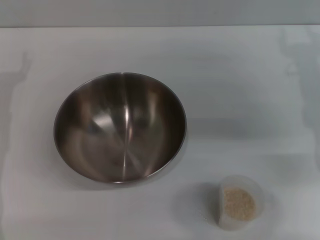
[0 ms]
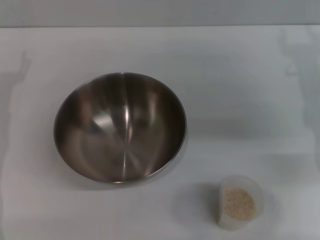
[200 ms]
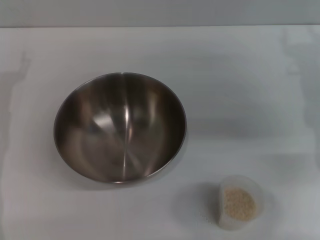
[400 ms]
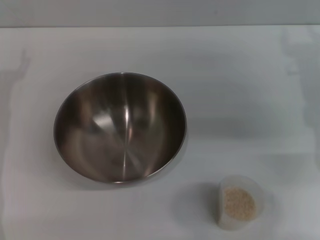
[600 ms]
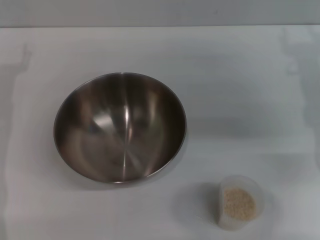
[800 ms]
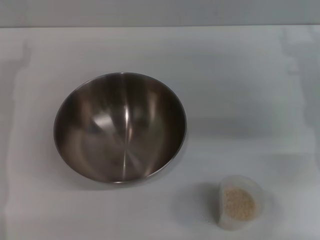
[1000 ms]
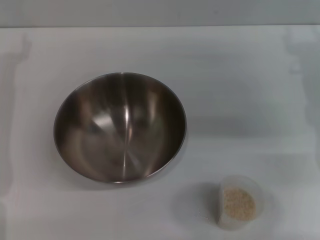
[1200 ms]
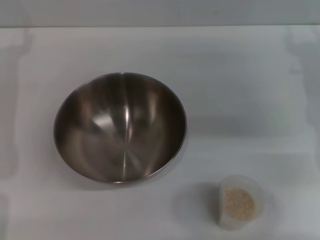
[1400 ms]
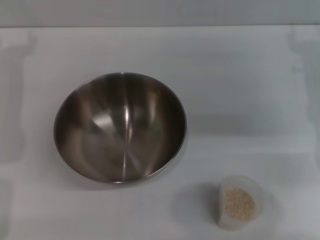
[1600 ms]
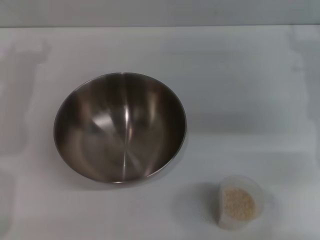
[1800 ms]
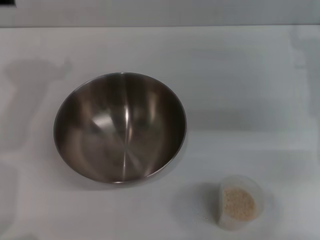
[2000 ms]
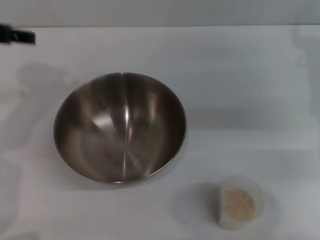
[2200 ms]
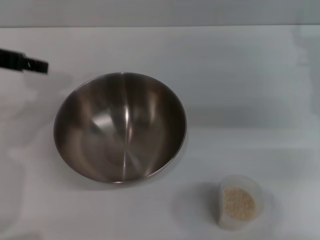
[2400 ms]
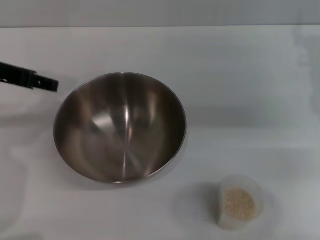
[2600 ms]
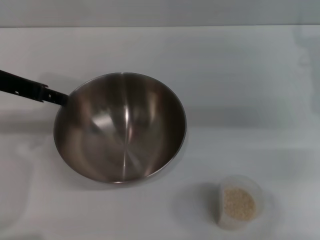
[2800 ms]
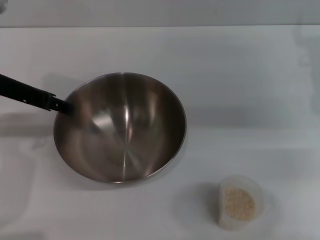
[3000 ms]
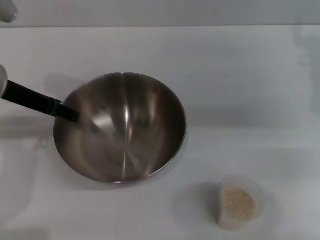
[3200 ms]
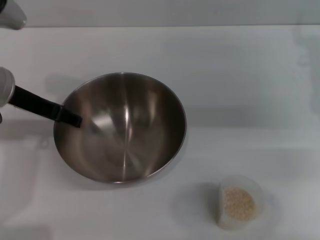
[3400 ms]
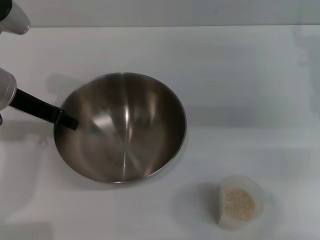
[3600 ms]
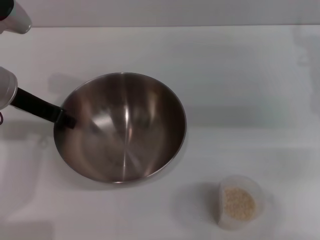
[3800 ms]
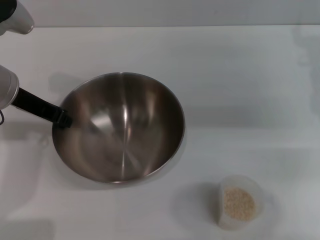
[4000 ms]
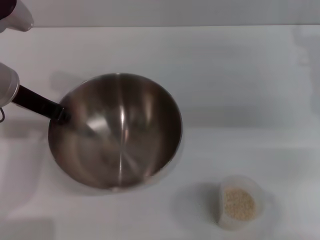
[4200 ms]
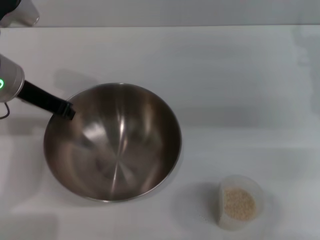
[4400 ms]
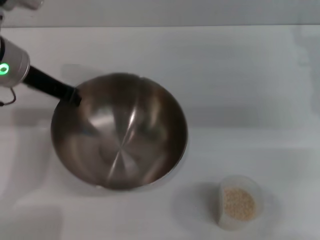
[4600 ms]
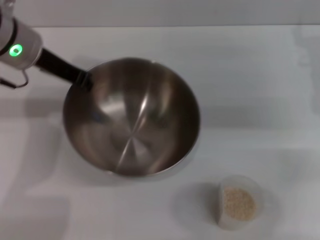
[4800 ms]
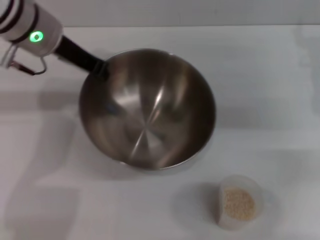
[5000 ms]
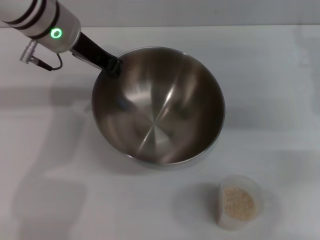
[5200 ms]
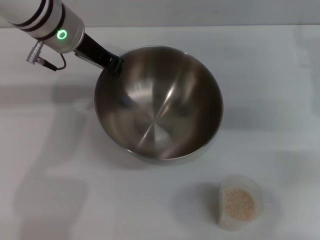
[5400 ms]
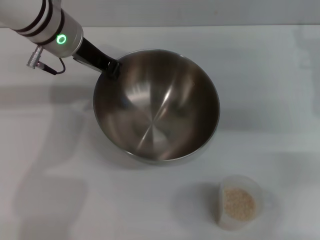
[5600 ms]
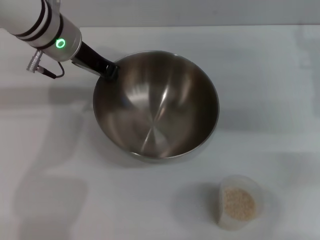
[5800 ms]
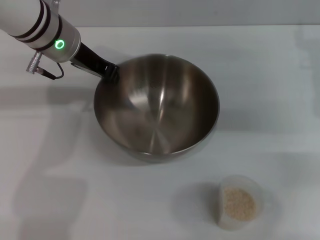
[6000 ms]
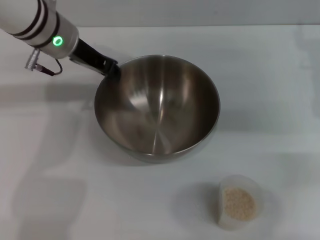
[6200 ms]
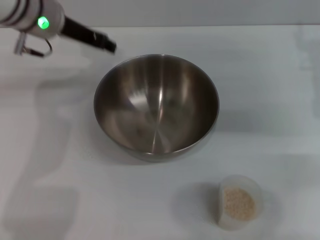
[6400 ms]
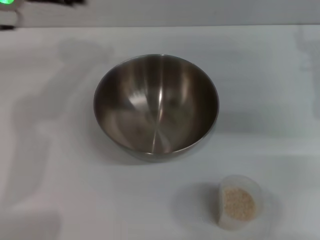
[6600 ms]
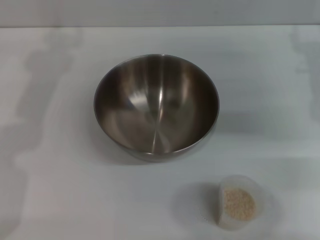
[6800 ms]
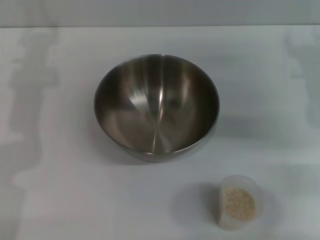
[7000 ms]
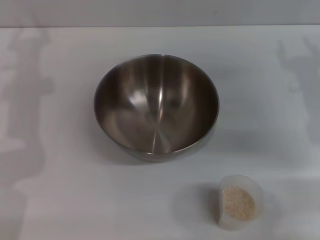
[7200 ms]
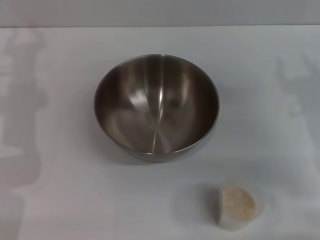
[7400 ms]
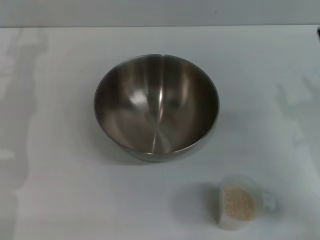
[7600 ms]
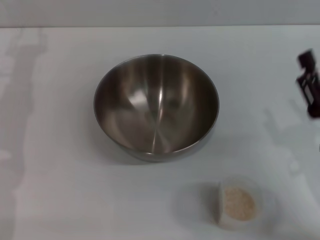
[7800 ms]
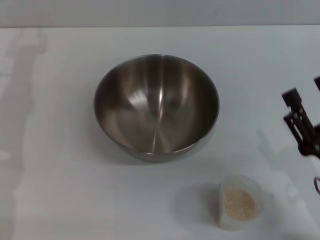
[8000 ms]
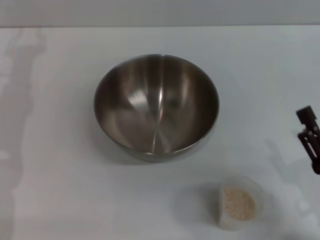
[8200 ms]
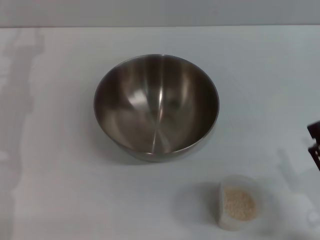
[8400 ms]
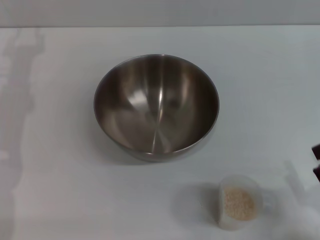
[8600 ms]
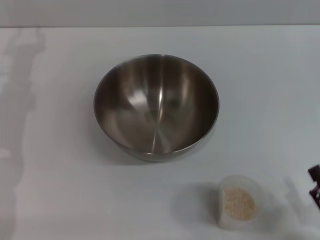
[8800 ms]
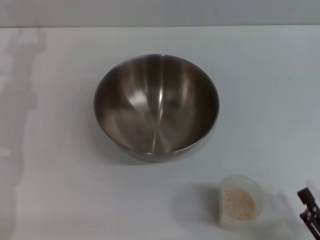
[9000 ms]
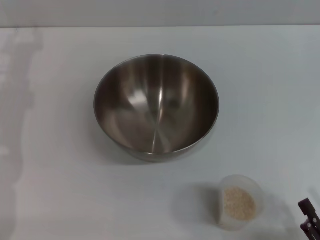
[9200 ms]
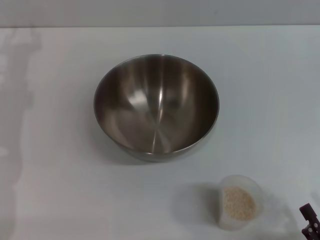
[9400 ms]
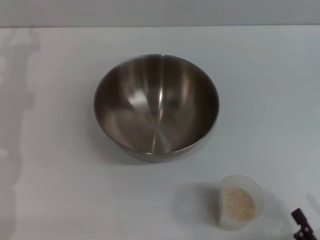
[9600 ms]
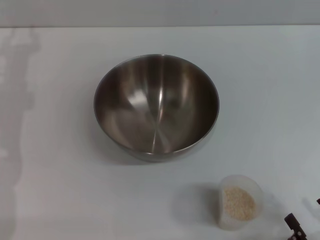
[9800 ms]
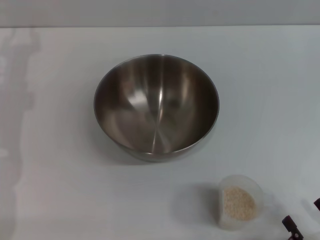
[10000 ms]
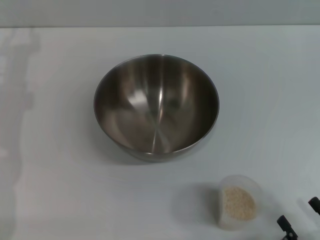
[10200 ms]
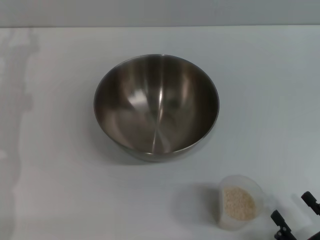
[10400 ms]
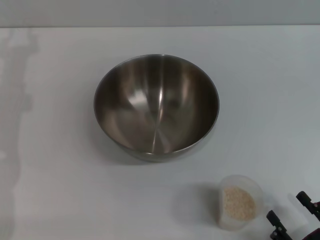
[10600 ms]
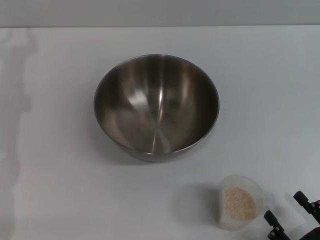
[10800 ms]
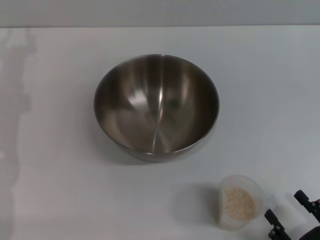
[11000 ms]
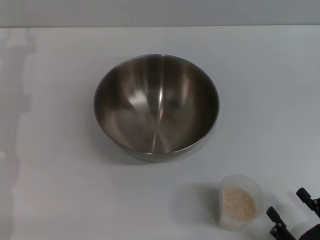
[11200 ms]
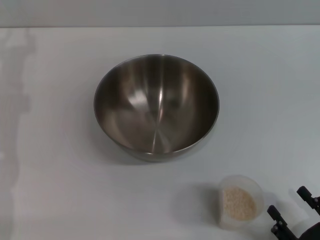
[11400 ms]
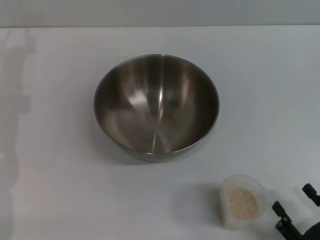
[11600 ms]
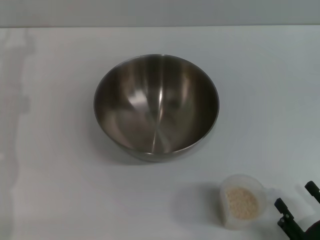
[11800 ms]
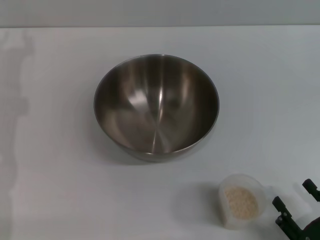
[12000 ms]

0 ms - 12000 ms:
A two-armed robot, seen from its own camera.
Task of the whole recording: Place the bowl in the middle of the table with one hand and pour the rice from the grain cup into it with the other hand.
Step, 0 ms - 4600 ms: Pick up the bowl with the left gripper.
Step, 4800 ms - 6400 ms: Place the bowl in the center of view with the left gripper.
1600 ms - 3000 ms: The left gripper is displaced to the right by approximately 10 cm.
3000 ms - 4400 ms: The left gripper closes.
4400 ms - 6000 ms: The left gripper moves to the right and forward, about 10 cm.
6000 ms - 7600 ms: The left gripper shifts roughly 15 cm to the left and backward, and opens up. The right gripper goes approximately 15 cm backward and downward.
7600 ms - 9000 ms: The right gripper travels backward by some 20 cm.
9000 ms - 12000 ms: The grippers stay close to where they were, moving slightly.

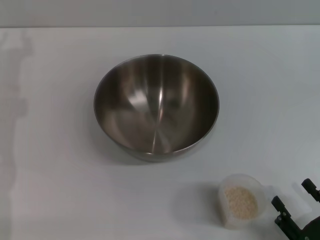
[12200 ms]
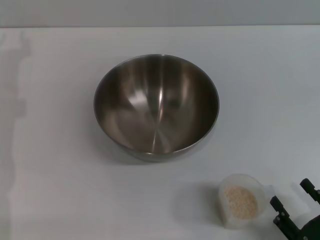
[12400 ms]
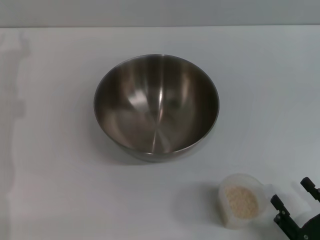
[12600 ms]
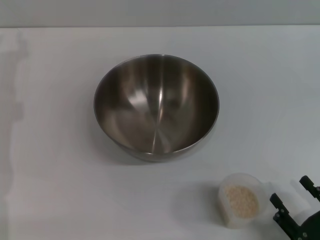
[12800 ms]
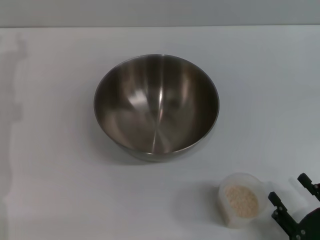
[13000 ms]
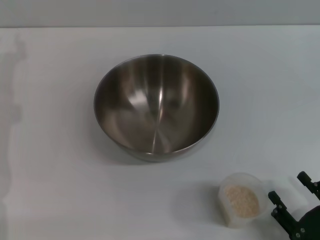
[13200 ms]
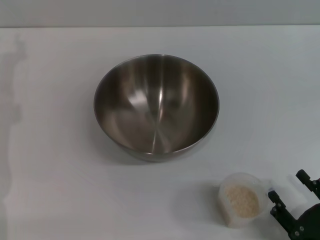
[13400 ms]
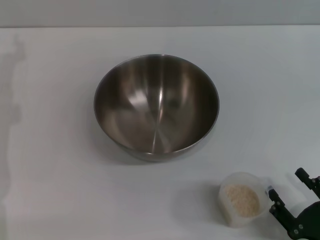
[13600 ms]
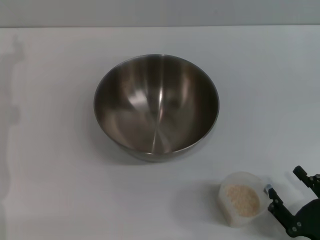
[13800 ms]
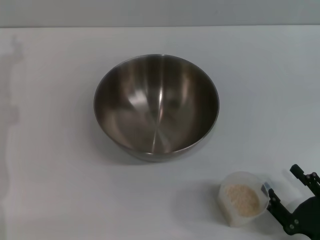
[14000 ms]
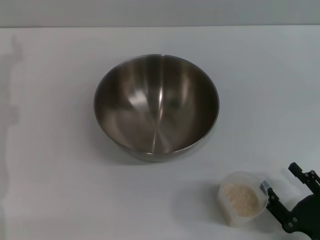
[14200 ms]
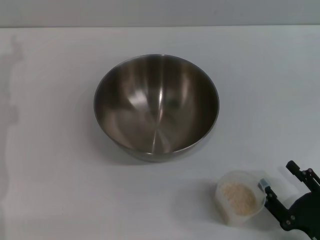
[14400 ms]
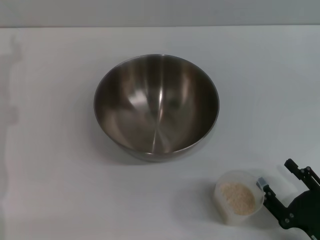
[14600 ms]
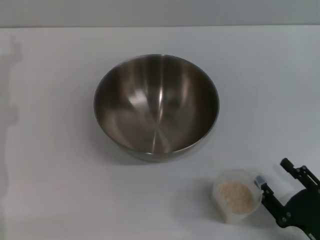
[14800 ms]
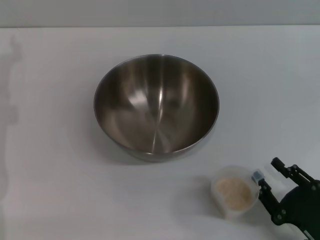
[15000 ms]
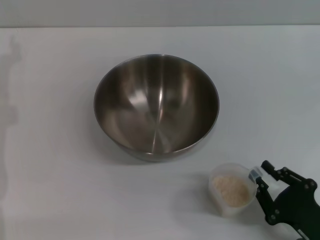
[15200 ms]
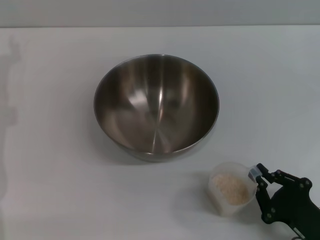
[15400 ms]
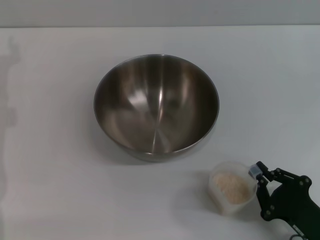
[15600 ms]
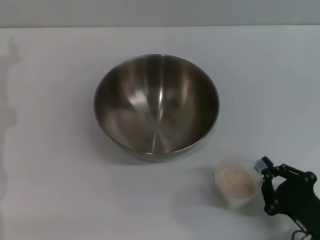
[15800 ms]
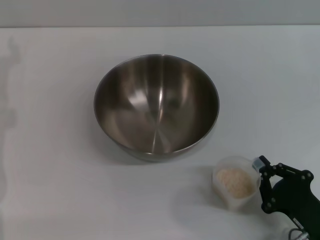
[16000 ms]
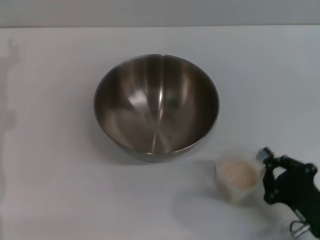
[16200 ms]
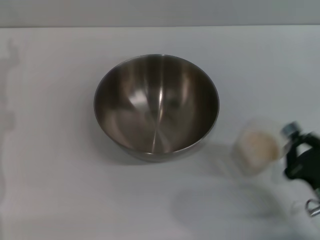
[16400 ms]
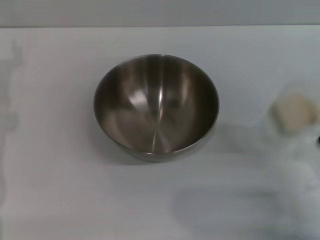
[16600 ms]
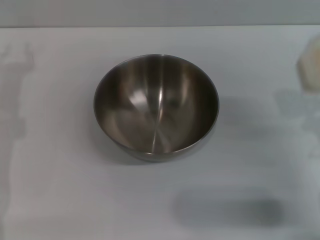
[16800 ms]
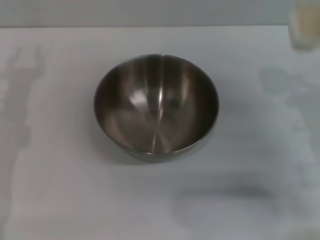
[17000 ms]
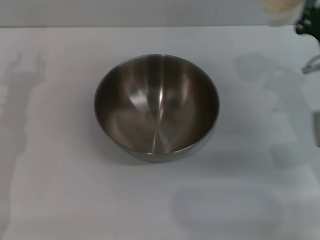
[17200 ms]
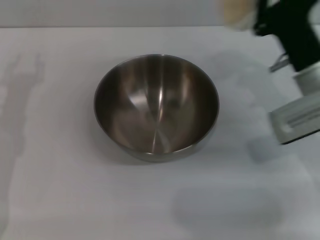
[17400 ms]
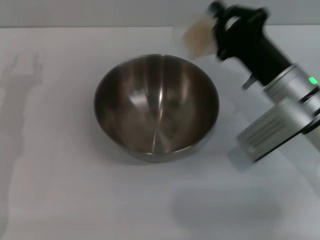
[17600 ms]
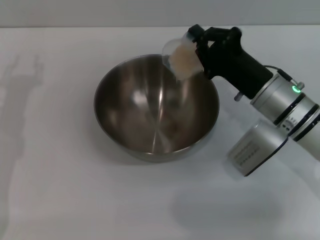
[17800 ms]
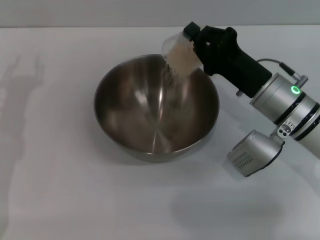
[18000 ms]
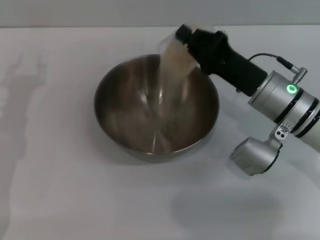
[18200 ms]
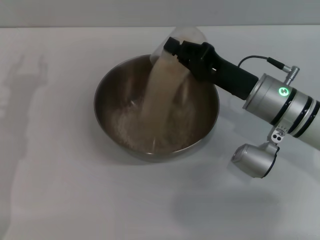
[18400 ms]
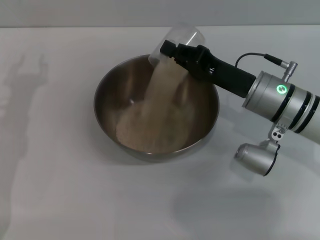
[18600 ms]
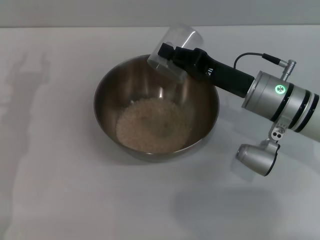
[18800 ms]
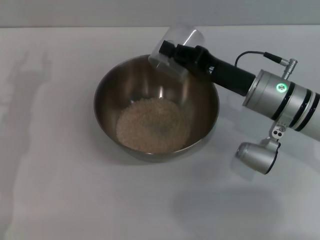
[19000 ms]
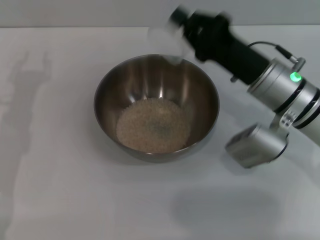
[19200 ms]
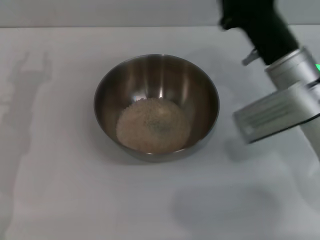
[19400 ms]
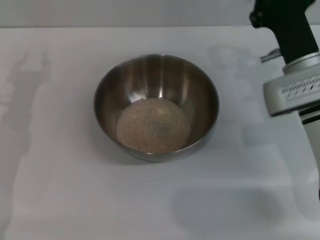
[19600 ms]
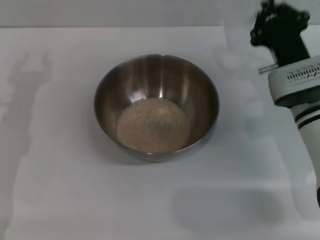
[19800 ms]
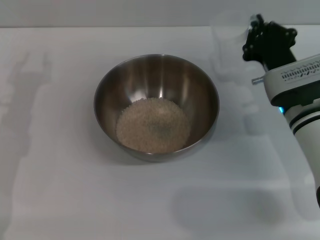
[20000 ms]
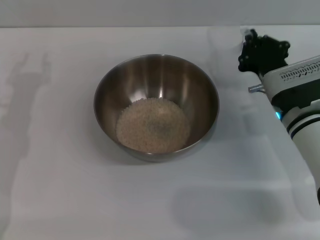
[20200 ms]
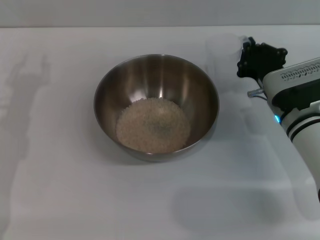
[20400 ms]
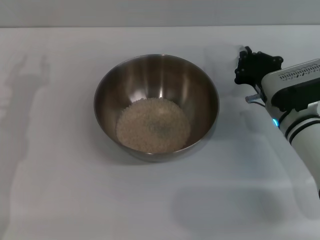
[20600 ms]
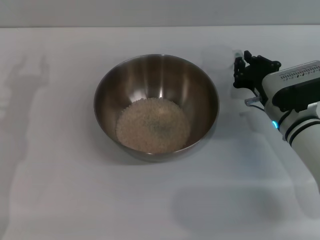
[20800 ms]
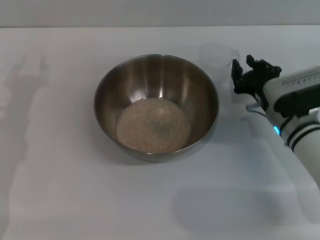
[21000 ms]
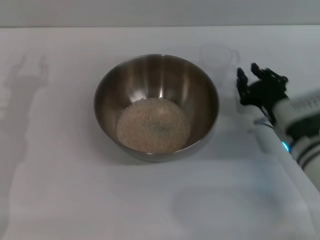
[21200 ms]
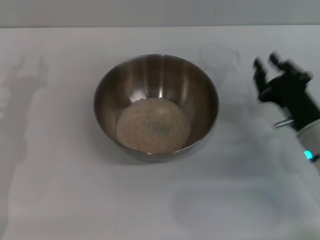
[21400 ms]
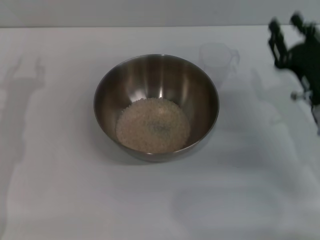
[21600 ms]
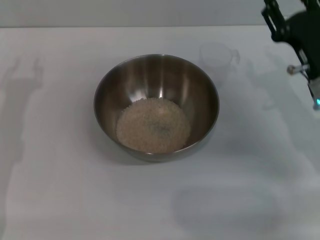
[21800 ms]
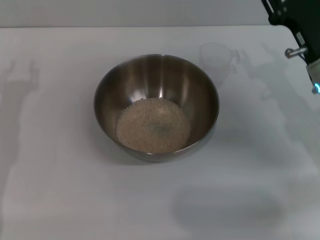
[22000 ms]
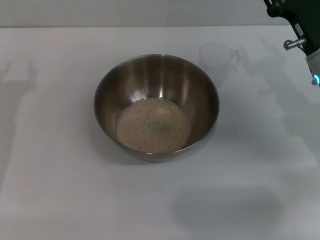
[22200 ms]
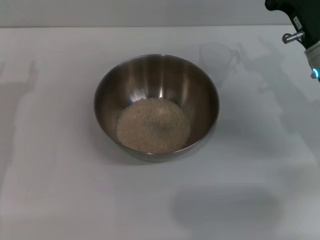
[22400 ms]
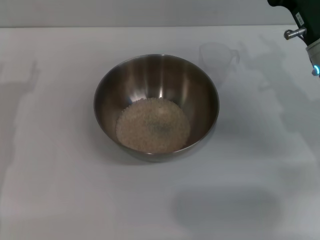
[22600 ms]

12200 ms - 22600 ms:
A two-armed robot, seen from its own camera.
Task of the whole recording: Place the bowl in the middle of the table with one hand and pour the rice from the grain cup into it with the other hand.
Step, 12200 ms - 16400 ms: Pick up the cup with rice in it with the right gripper.
Step, 16800 ms - 18800 ms: Pour the rice from the cup into the bowl with the right gripper.
Step, 19200 ms - 21200 ms: Place the cup on the table with the right gripper.
12200 ms - 15200 ms: The grippers make only small movements.
15200 ms - 16600 ms: The right gripper changes place by some 5 cm, and closes.
16600 ms - 18200 ms: The right gripper moves forward and to the left, roughly 20 cm; the left gripper changes place by some 5 cm.
19600 ms - 21200 ms: The right gripper travels downward by about 10 cm, and opens.
21200 ms - 22600 ms: The right gripper is displaced upward and forward by approximately 10 cm, and opens up.
